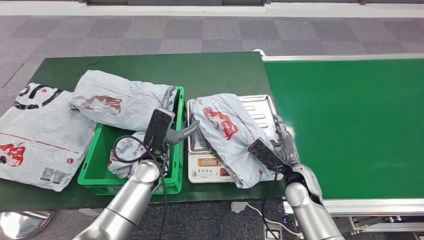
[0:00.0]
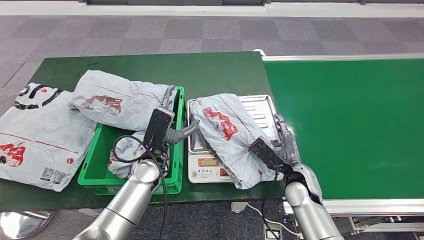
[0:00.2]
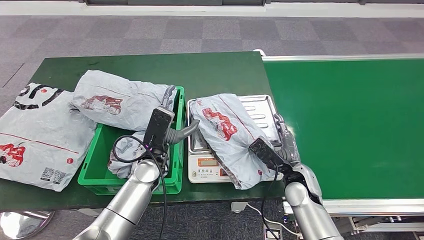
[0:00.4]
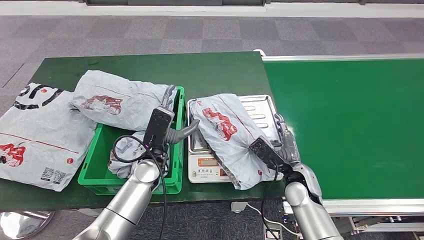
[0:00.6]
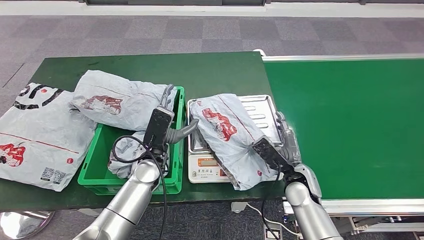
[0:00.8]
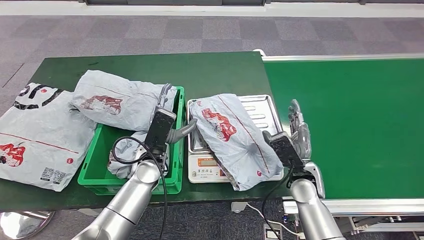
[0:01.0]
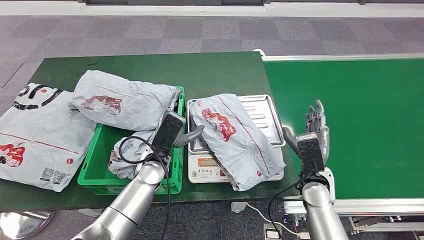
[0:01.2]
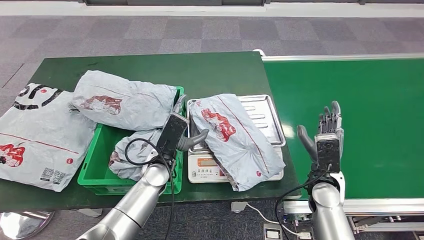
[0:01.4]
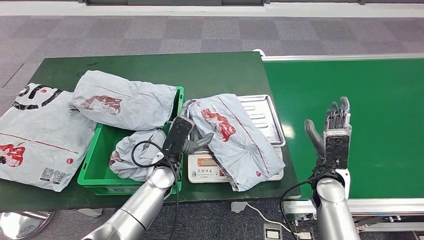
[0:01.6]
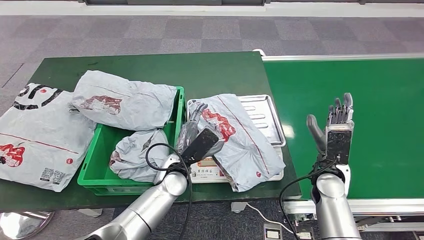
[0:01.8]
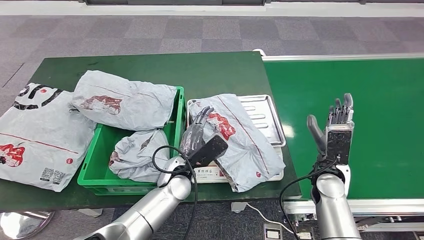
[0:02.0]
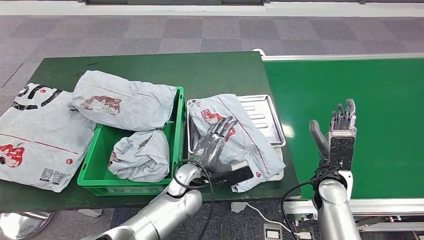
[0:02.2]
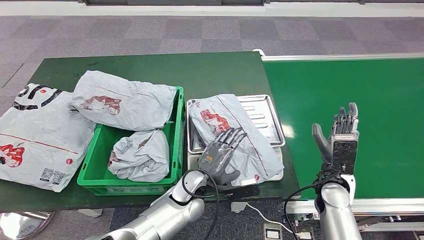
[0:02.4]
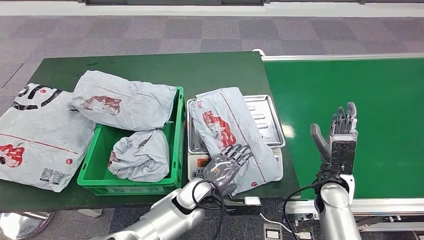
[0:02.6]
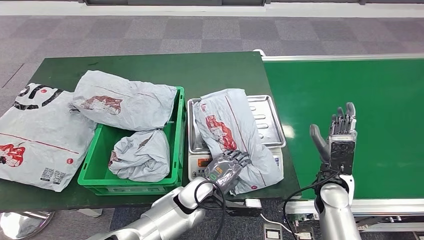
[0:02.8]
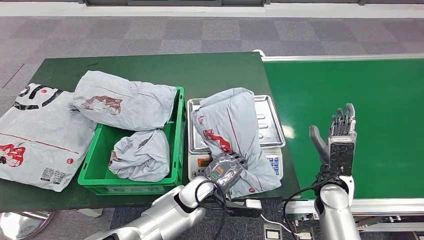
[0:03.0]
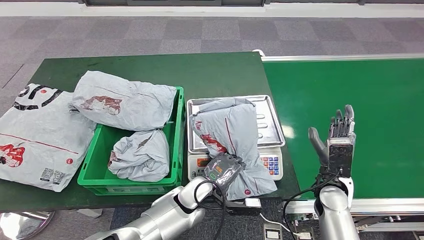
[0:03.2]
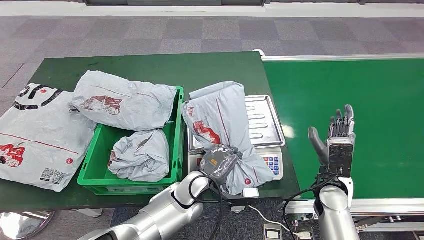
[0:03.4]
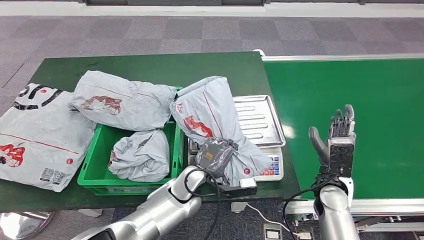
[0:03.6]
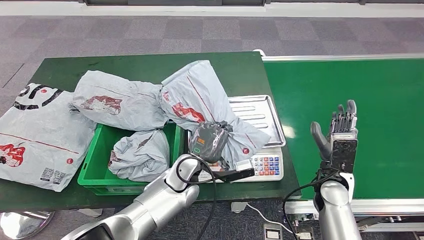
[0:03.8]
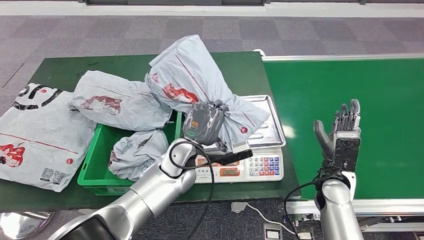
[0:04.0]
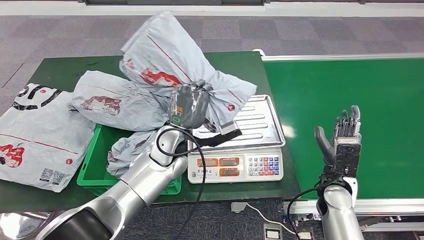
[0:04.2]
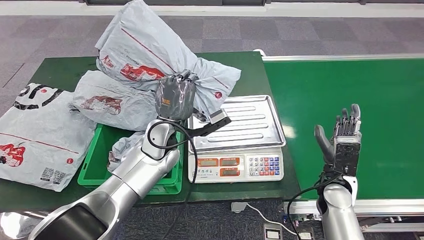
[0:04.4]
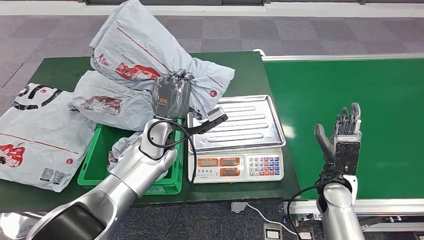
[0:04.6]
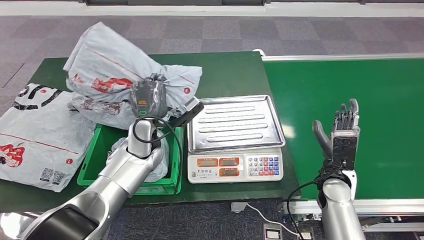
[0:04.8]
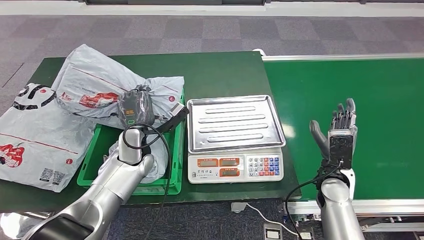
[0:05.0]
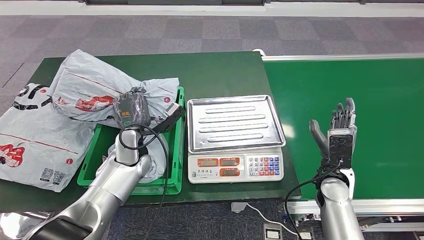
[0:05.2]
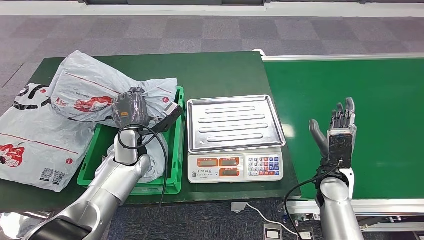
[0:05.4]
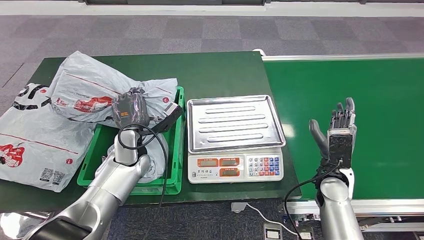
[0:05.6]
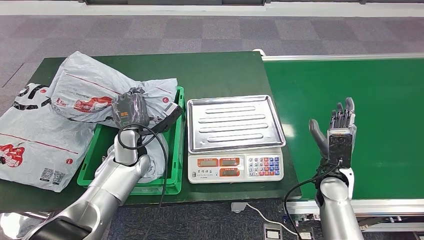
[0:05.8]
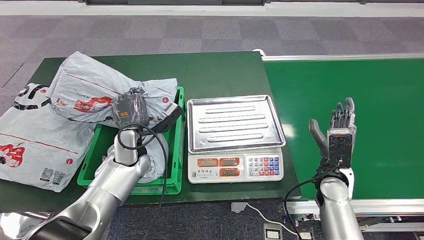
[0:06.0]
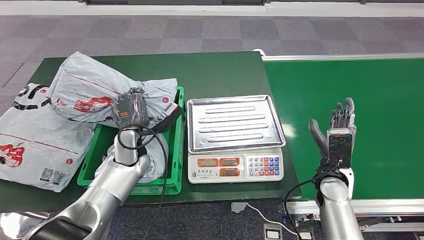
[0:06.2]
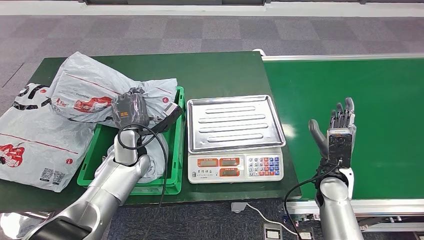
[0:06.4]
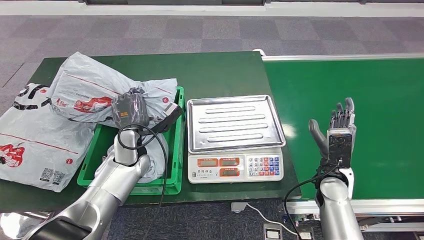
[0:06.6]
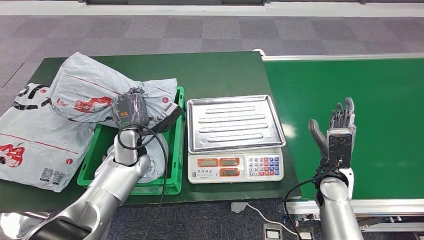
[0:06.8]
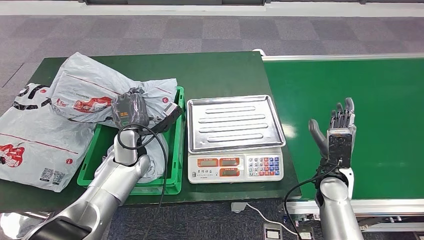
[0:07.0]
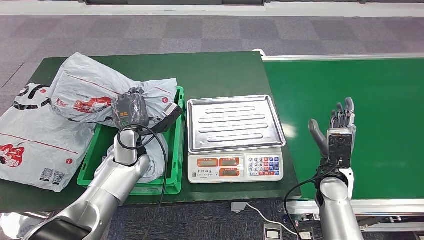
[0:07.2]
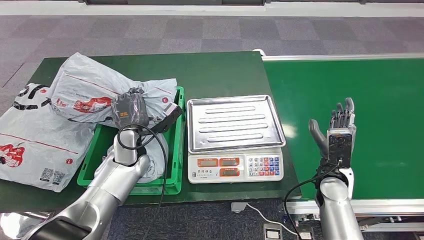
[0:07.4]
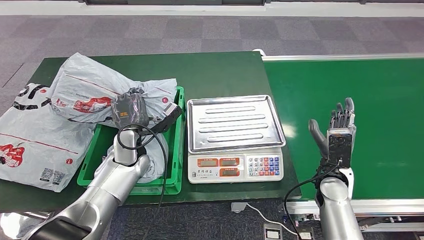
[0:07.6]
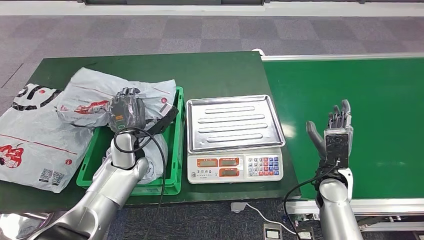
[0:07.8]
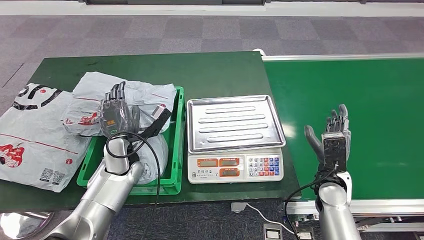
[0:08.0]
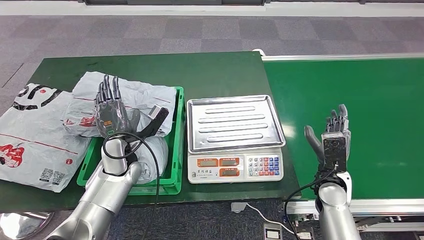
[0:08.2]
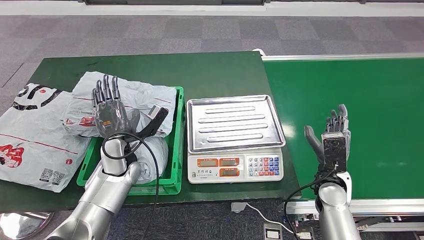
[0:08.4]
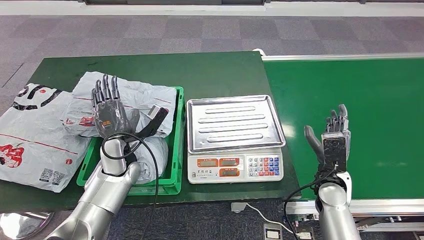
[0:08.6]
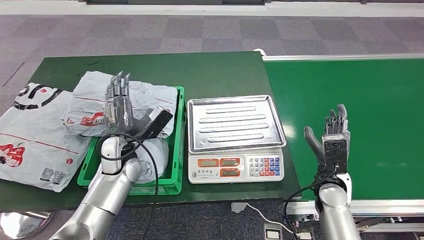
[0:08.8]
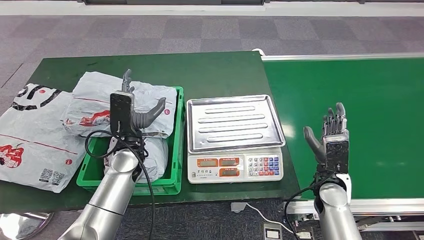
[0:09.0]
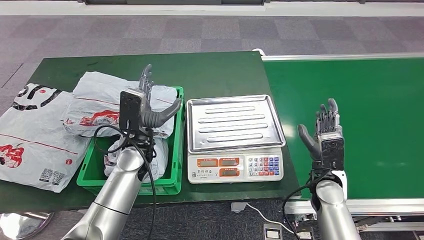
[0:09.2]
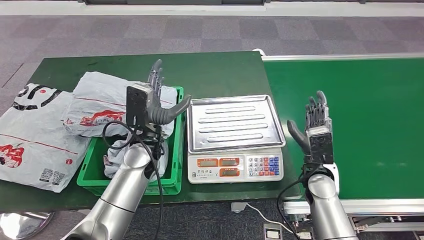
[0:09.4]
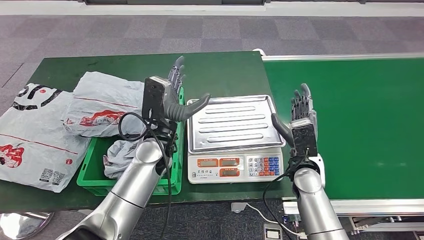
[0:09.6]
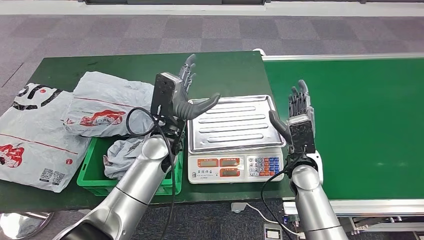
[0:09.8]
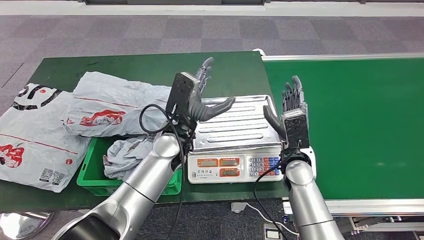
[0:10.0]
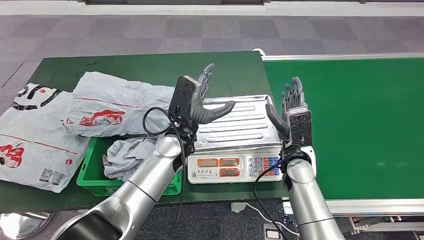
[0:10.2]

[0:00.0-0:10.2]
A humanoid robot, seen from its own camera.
Step, 0:01.0 to 0:04.0: Pick up the parcel from the inbound machine.
Step, 0:04.2 to 0:10.0: Place the parcel into the delivery box.
0:00.0 to 0:01.4: The right hand changes place by some 5 cm.
0:01.4 to 0:03.0: The left hand shifts about 10 cm to the right and backward.
0:05.8 to 0:07.2: The two hands keep their place.
0:07.2 to 0:08.8: The hands move only a little.
